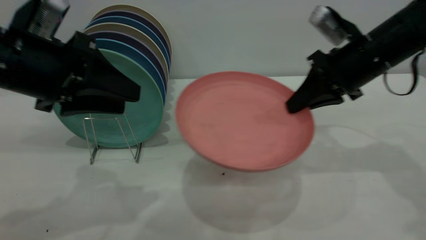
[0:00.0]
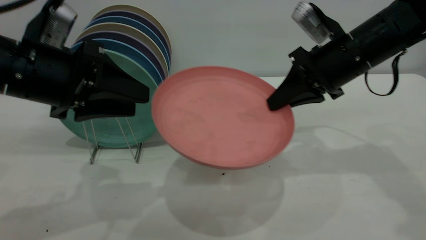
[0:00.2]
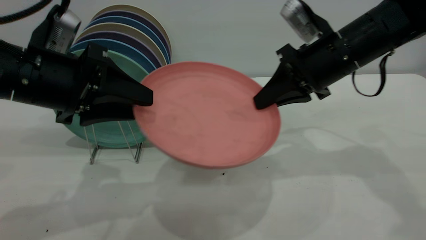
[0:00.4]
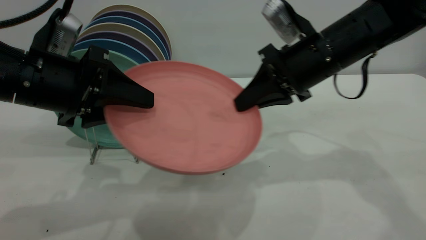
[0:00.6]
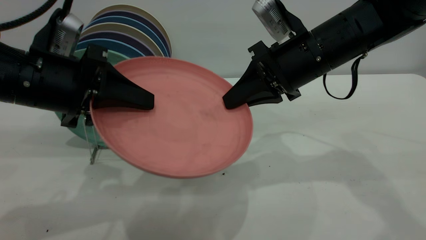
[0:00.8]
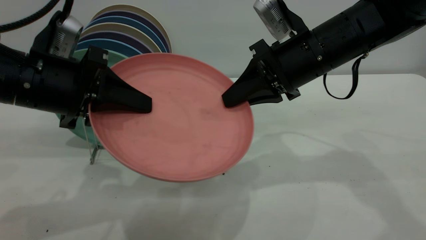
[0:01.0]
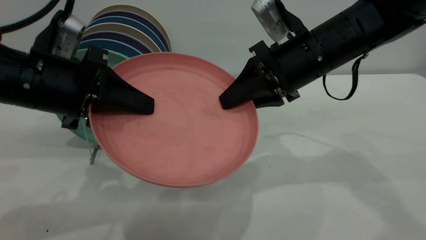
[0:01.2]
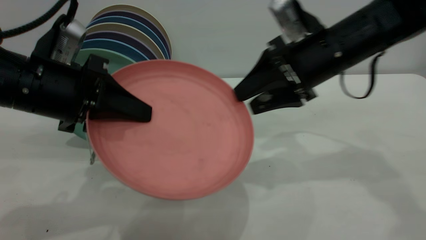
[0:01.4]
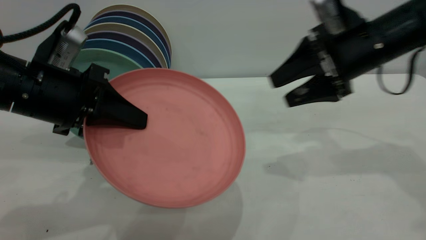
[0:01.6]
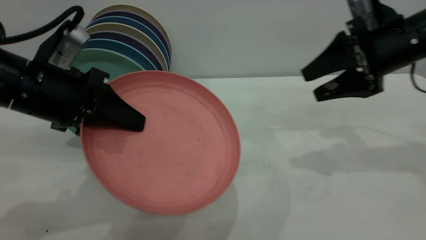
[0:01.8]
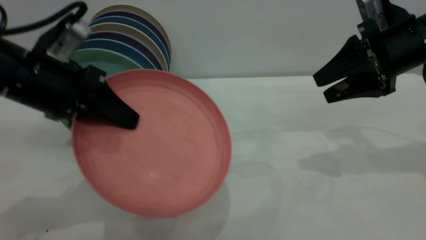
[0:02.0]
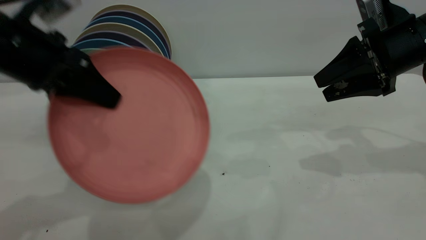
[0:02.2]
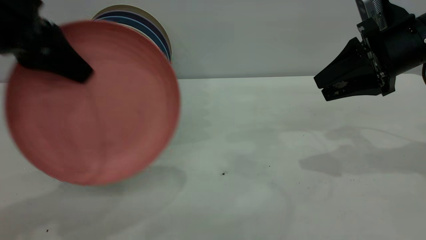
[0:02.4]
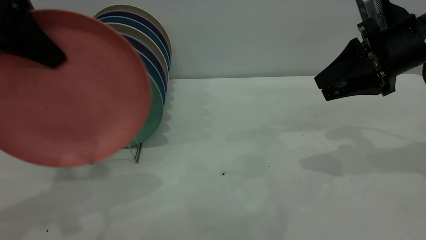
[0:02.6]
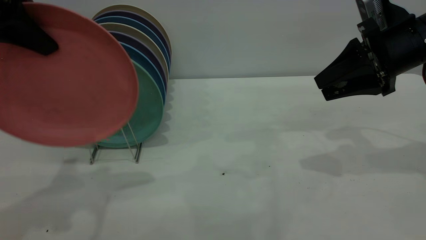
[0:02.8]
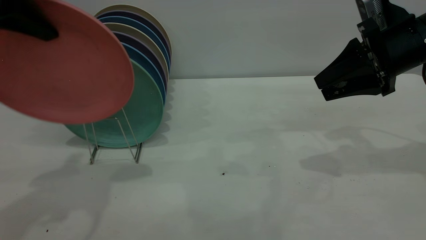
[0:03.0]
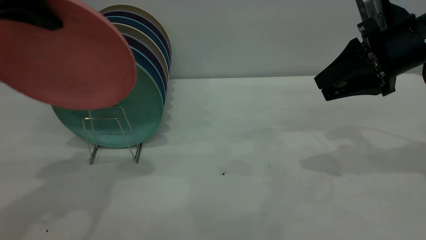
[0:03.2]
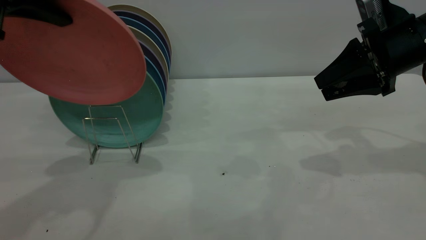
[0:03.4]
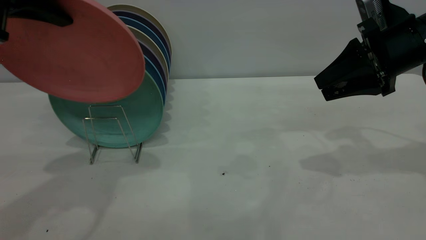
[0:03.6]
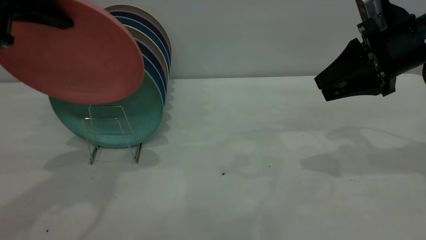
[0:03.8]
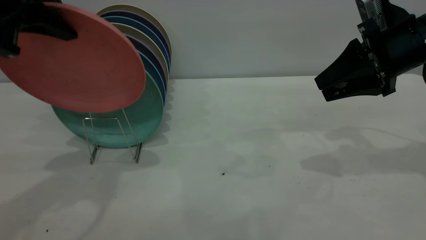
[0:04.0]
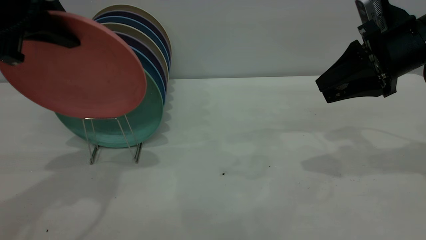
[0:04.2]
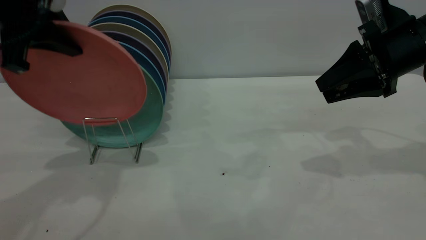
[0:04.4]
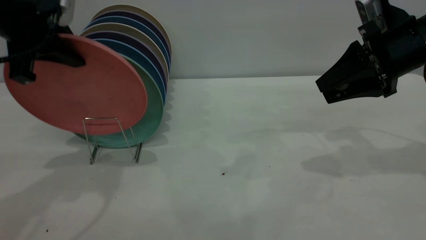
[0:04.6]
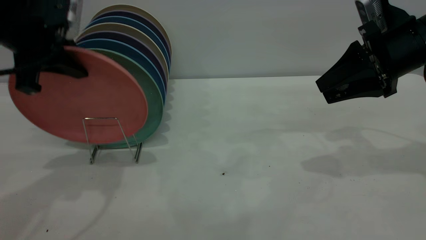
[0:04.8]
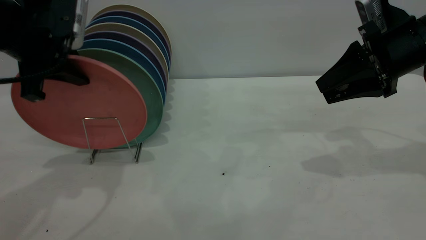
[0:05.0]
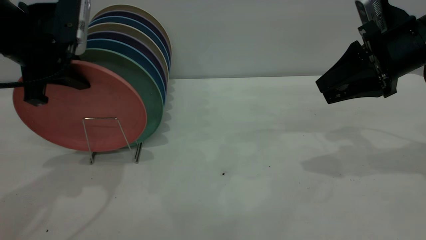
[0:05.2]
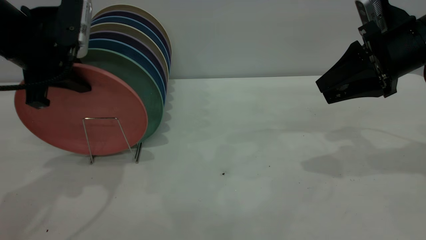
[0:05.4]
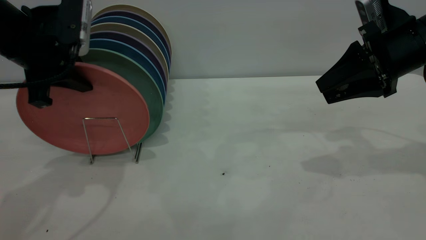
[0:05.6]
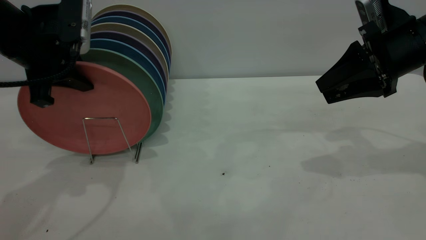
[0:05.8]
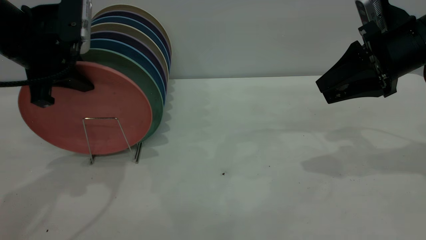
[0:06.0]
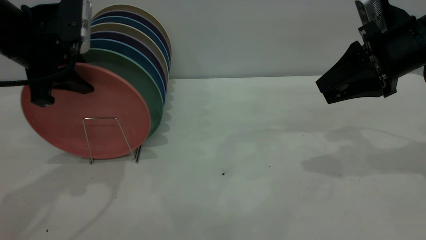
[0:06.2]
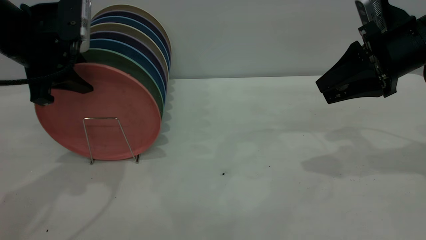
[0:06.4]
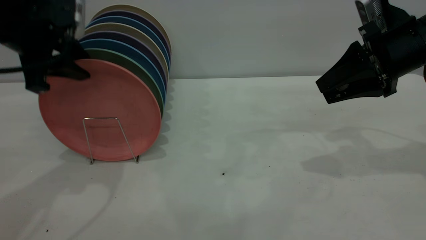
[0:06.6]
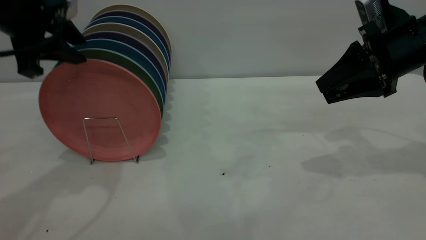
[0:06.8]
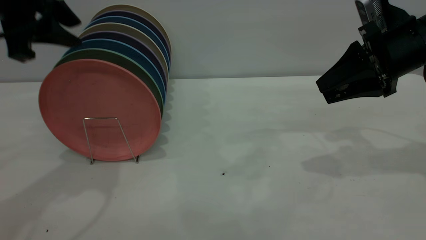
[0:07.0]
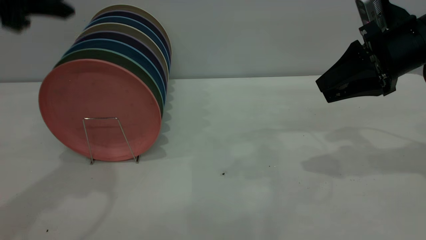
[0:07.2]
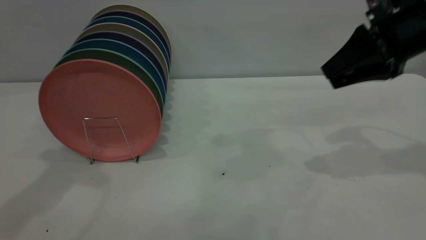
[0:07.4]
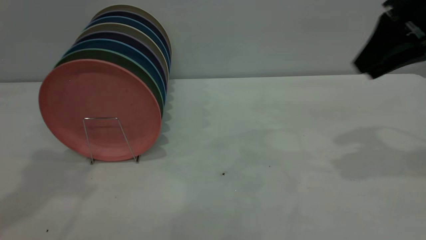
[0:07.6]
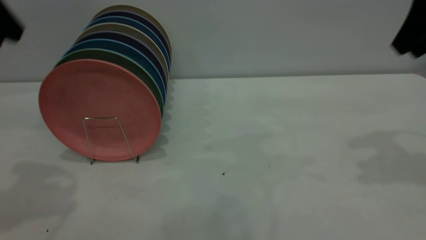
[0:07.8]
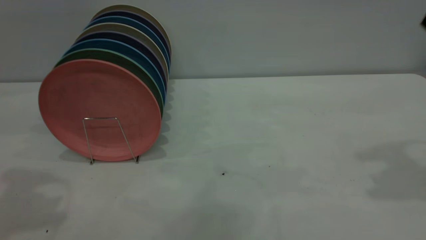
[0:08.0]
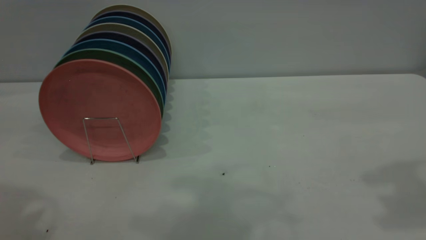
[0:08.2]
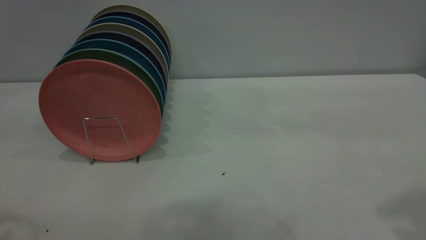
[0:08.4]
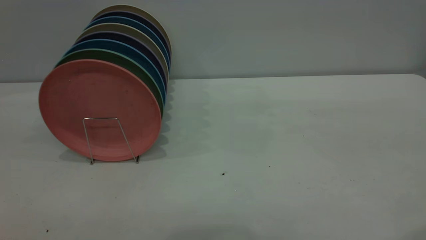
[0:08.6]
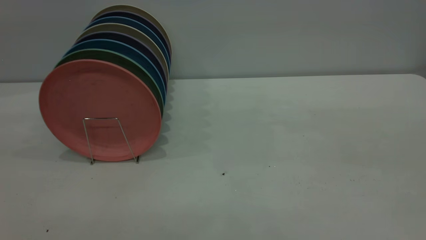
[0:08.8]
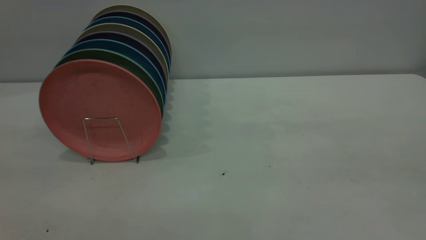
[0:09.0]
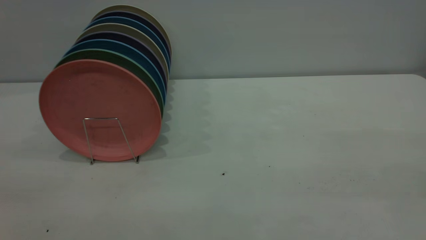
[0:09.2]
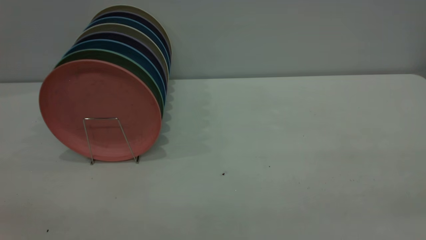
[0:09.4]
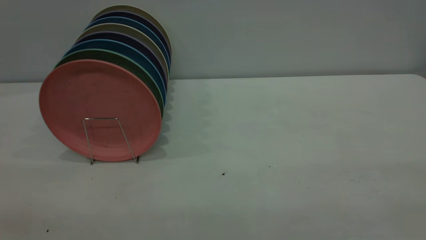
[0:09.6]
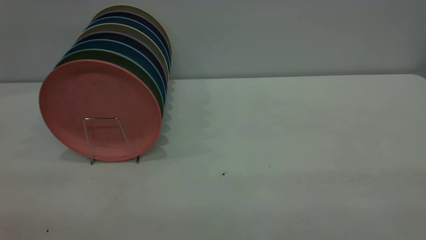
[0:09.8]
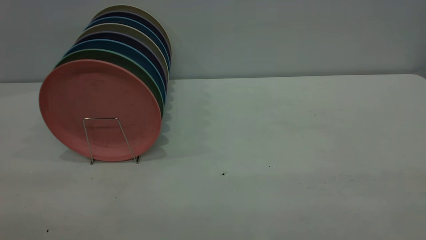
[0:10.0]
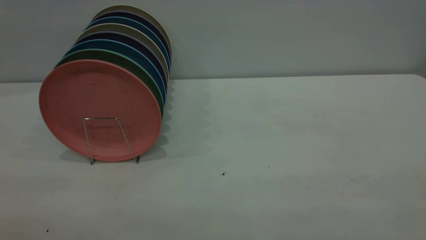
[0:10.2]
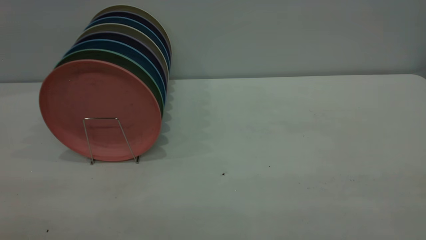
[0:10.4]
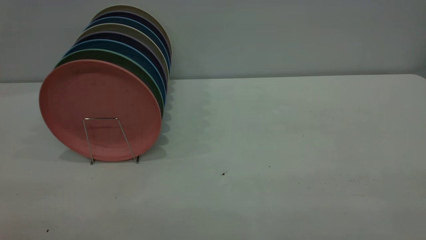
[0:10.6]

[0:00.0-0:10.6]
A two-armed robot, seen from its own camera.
Task of the whole recording: the right gripper grasp the pink plate, the right gripper pass the pink plate to the left gripper, and the left gripper place the pink plate on the plate rack.
Step, 0:00.0 to 0:01.4: Pass the plate from the right gripper to the left gripper.
Step, 0:01.6 to 0:07.0: Place the plate on the shelf.
0:00.0 to 0:01.6: The right gripper goes to the left and returns, roughly 10 cm each way, and opens its fingers. The left gripper closes its fingers.
0:01.6 to 0:03.0: The right gripper closes, while the left gripper moves upward, about 15 cm.
0:03.0 to 0:04.6: The left gripper is displaced downward by roughly 5 cm.
0:04.6 to 0:06.0: There are only small adjustments of the grippers.
0:06.0 to 0:07.6: The left gripper is displaced upward and backward by about 15 cm, and opens up. The right gripper moves upward, about 10 cm.
0:07.6 to 0:09.0: The right gripper goes some 30 cm backward and upward.

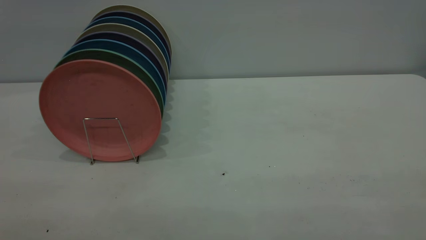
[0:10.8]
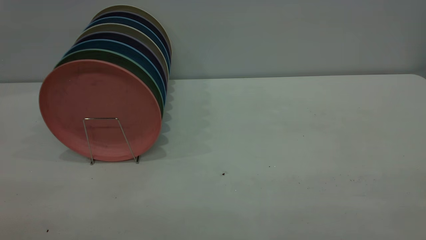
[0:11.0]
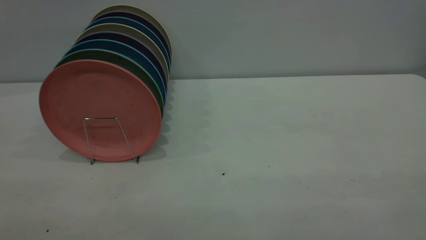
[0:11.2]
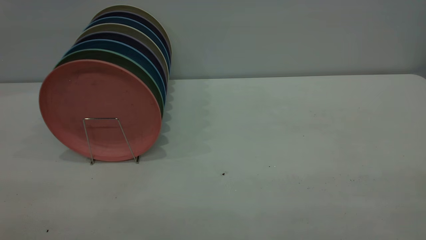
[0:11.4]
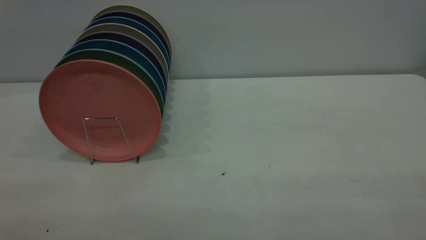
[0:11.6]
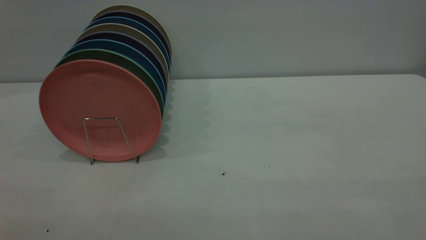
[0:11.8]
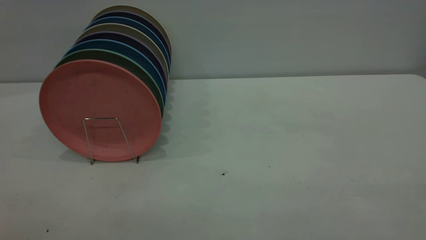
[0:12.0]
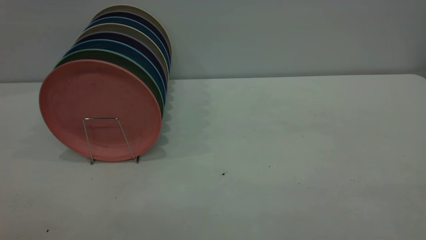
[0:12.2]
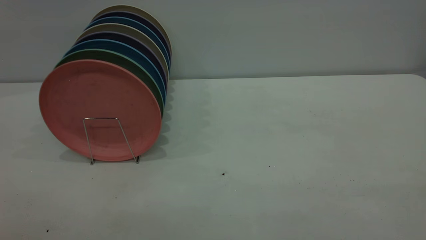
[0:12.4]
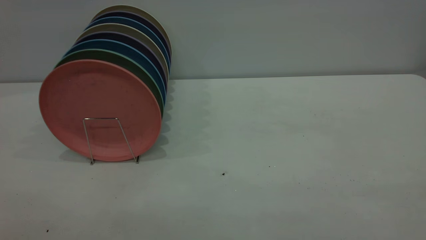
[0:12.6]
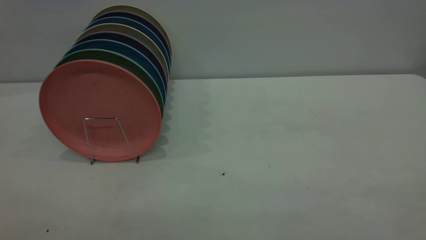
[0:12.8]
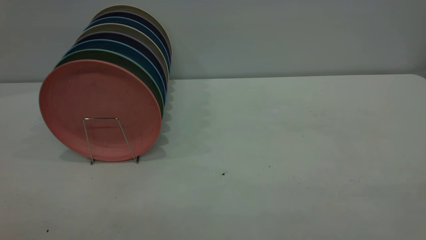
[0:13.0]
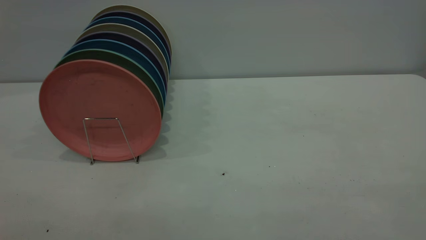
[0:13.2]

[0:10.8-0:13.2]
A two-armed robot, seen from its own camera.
Task of the whole recording: the right gripper grasp the pink plate, the right gripper pass the pink plate to the left gripper, and the left gripper place the pink plate on the plate rack.
0:12.0 to 0:13.2: Both grippers stay about where they are.
